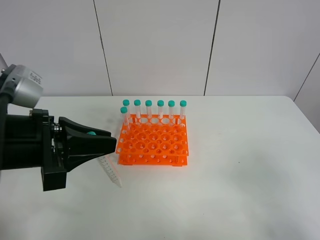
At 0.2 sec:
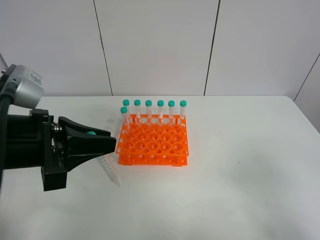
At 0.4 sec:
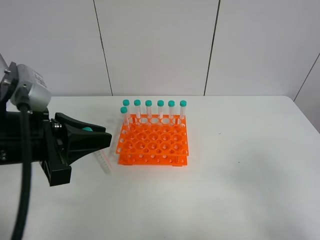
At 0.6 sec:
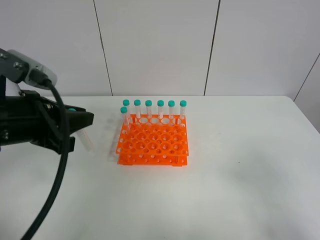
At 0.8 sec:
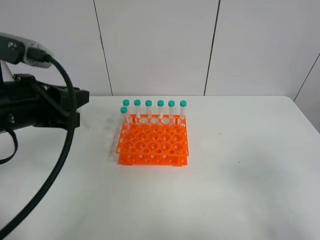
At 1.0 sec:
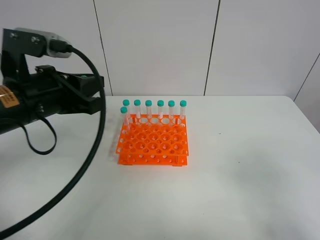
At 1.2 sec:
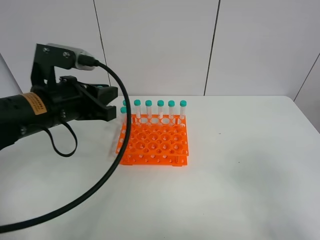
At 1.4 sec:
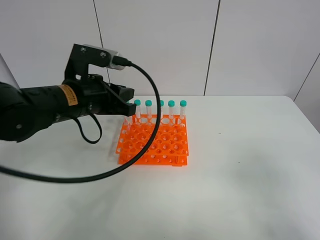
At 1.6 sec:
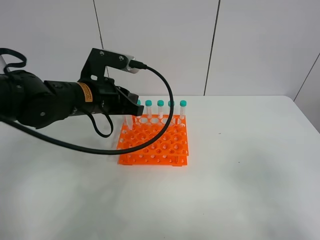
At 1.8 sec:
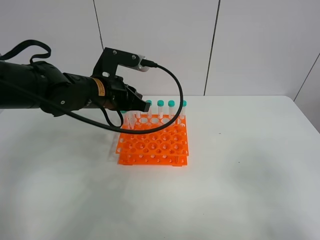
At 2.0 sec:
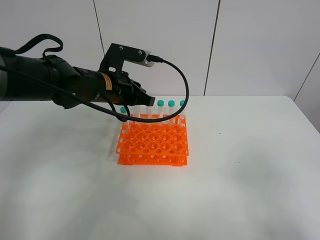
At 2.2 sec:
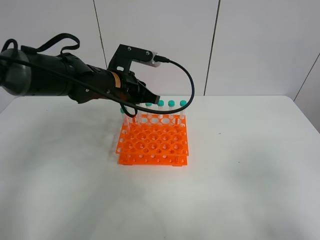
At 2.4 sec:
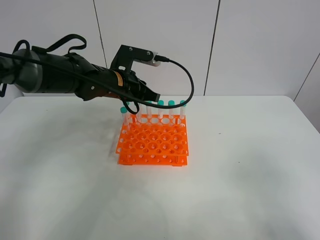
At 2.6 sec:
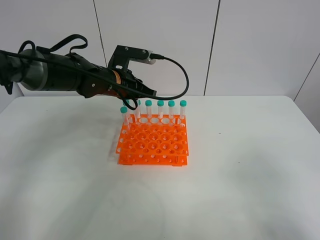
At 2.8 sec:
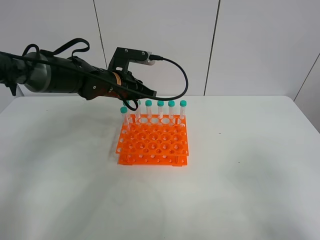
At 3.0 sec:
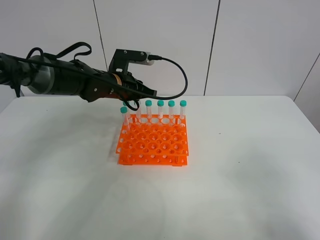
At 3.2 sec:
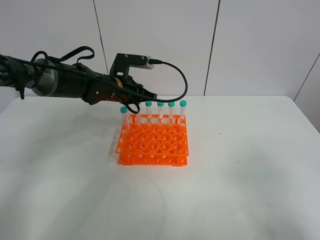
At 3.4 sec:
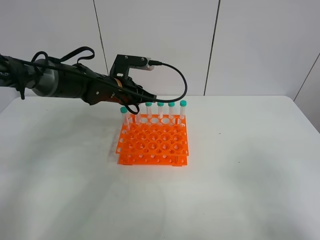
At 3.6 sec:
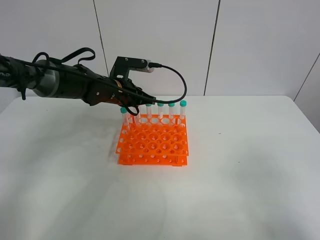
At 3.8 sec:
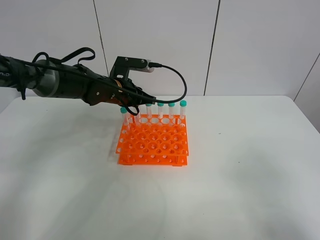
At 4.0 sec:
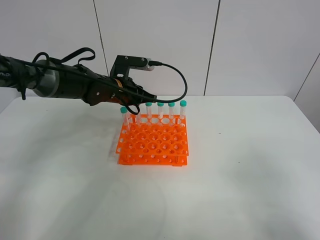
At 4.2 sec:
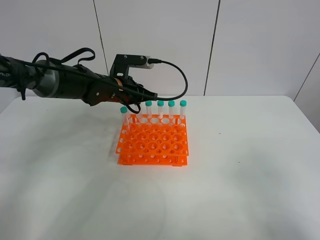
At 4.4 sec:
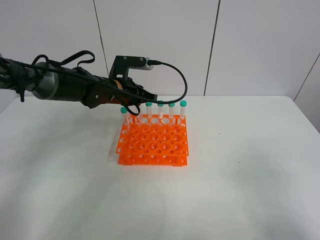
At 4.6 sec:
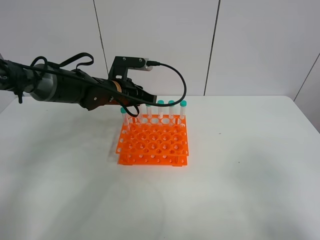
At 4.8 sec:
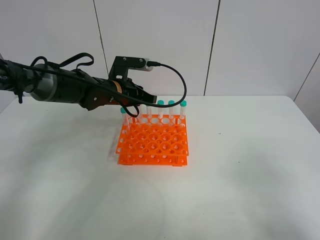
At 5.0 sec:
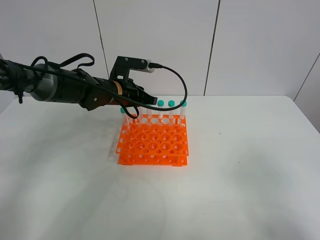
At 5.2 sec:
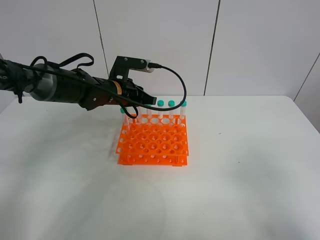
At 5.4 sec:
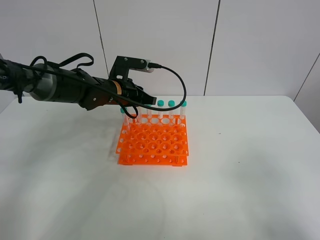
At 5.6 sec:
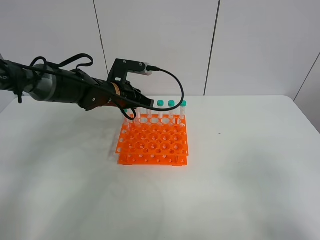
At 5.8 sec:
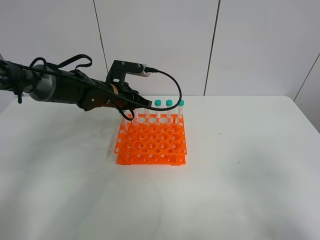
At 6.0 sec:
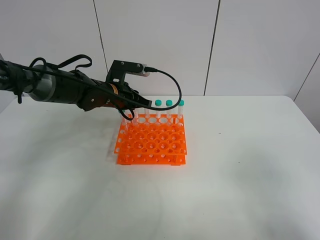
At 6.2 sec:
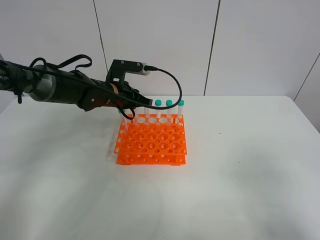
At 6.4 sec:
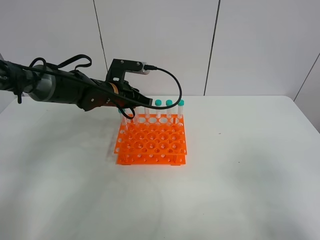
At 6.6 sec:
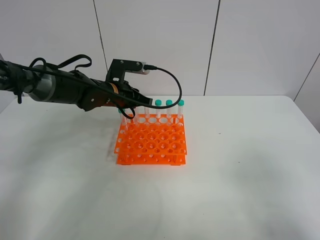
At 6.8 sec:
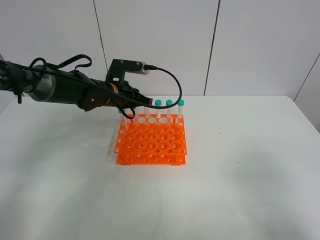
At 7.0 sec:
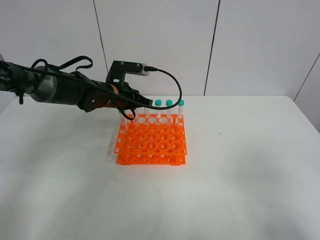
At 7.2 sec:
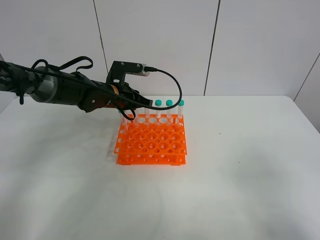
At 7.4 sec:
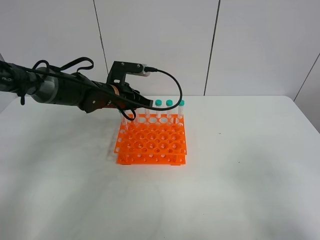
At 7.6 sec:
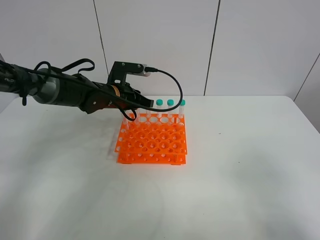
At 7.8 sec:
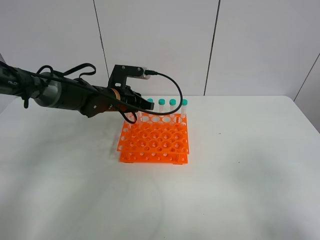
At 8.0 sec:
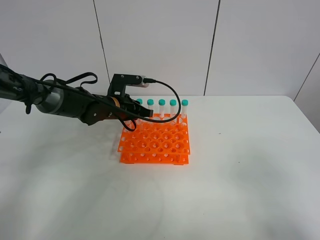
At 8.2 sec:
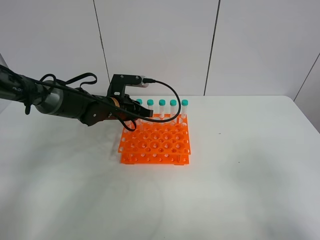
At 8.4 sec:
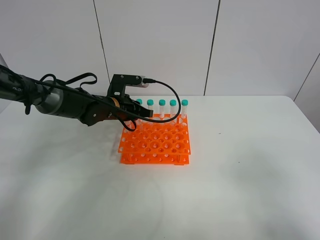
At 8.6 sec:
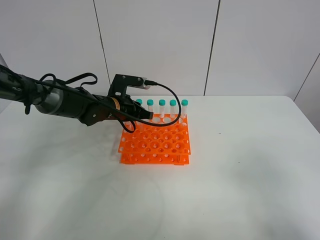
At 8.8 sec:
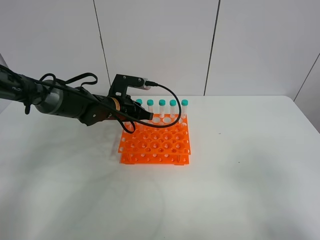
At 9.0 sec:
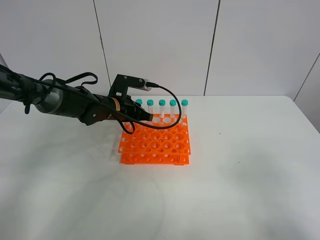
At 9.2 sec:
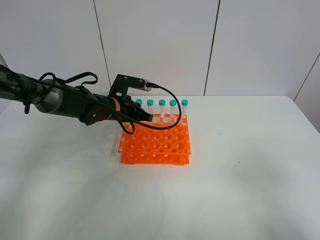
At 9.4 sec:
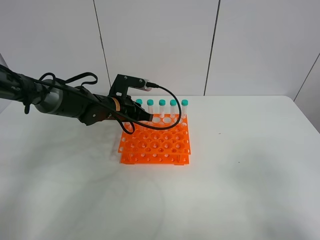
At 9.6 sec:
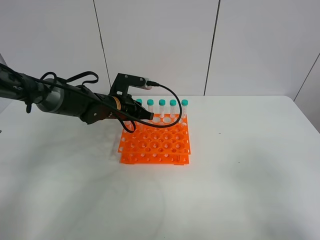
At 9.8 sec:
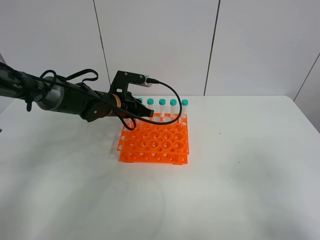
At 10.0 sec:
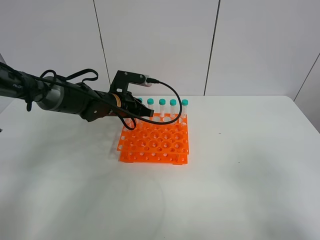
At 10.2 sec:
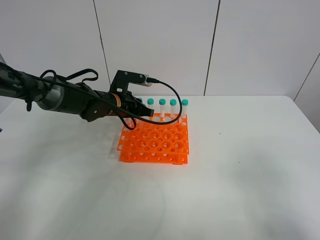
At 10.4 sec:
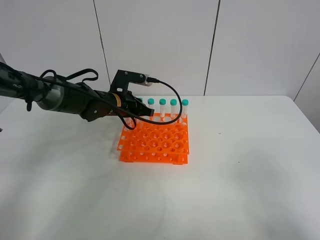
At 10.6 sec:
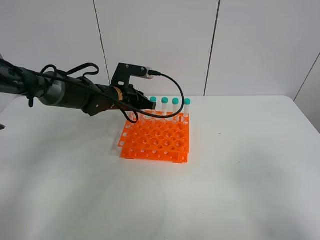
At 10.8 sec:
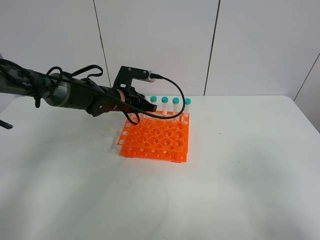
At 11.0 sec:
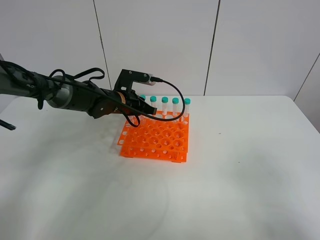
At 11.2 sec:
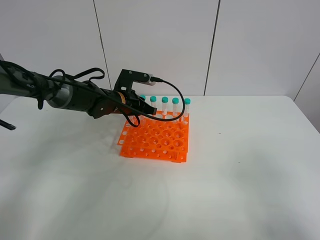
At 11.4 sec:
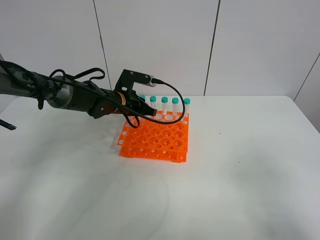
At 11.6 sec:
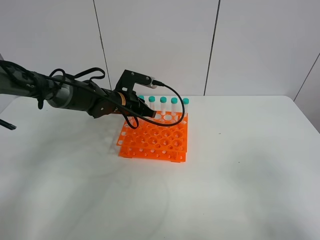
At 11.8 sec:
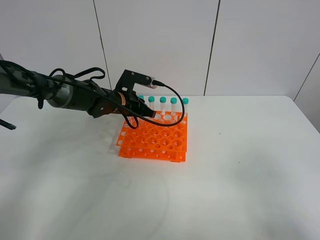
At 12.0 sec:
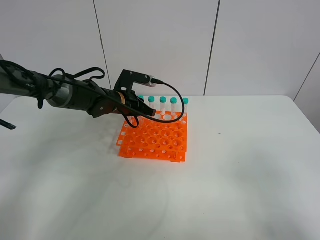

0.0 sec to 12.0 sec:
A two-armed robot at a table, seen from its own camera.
Task of the whole recording: Put the test tube on the table back onto the test tube rack.
0.0 sec to 1.6 sec: The left gripper is displaced forward by about 15 cm.
1.6 sec to 3.0 sec: The left gripper goes some 10 cm forward.
3.0 sec to 4.4 sec: Both grippers stay put.
4.4 sec to 6.0 sec: Both grippers stay put.
6.0 sec to 7.6 sec: Both grippers stay put.
7.6 sec to 12.0 sec: The grippers move only a little.

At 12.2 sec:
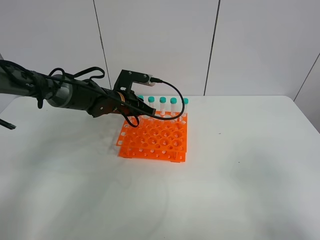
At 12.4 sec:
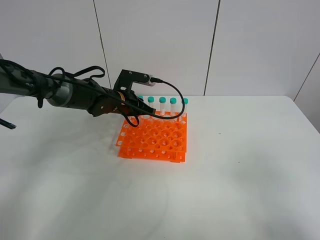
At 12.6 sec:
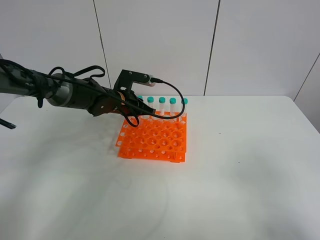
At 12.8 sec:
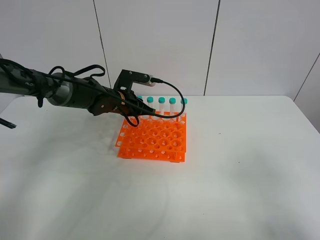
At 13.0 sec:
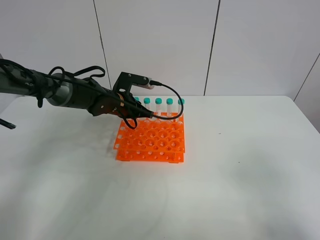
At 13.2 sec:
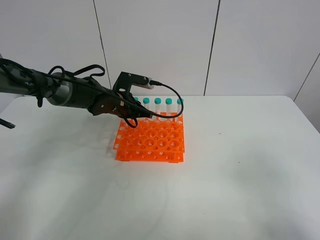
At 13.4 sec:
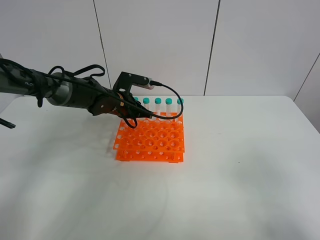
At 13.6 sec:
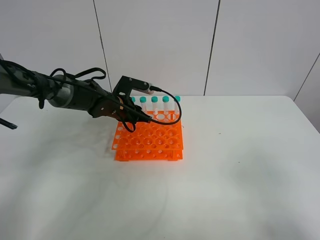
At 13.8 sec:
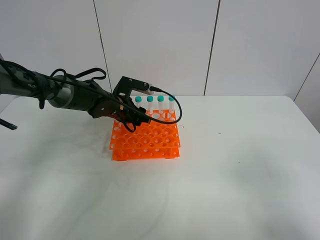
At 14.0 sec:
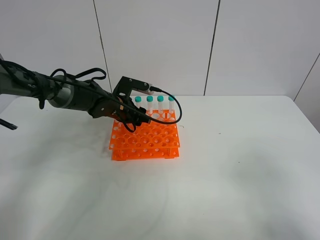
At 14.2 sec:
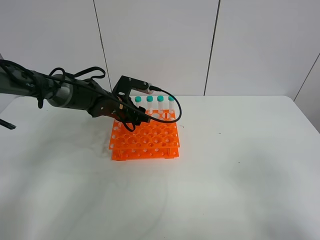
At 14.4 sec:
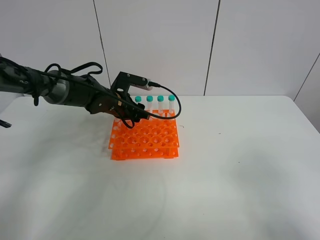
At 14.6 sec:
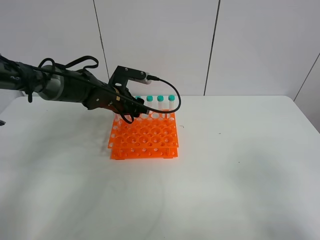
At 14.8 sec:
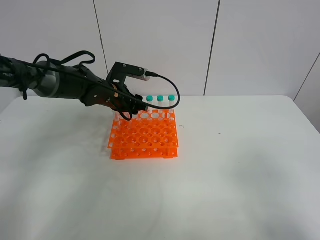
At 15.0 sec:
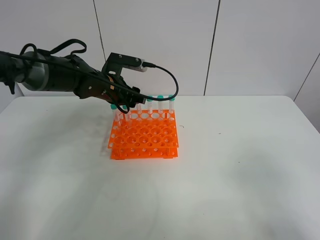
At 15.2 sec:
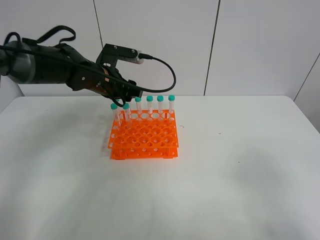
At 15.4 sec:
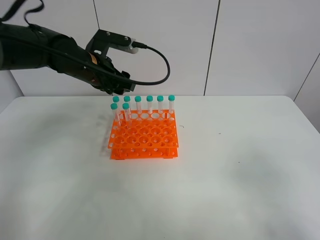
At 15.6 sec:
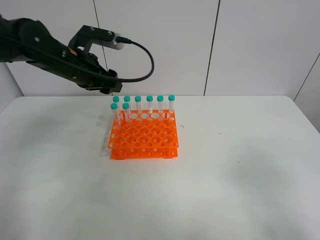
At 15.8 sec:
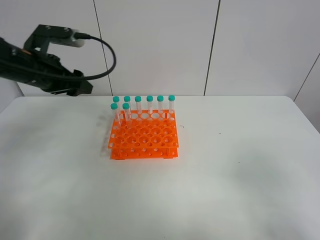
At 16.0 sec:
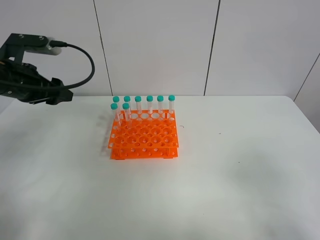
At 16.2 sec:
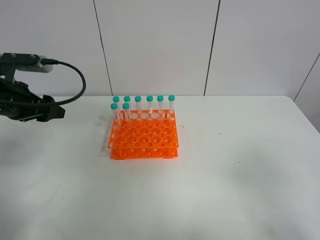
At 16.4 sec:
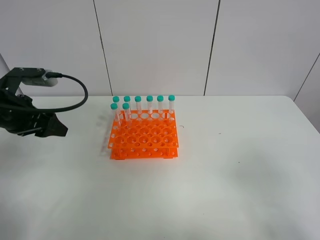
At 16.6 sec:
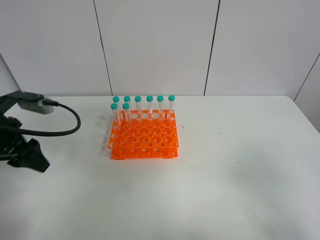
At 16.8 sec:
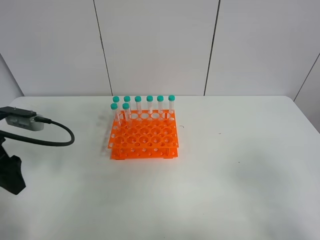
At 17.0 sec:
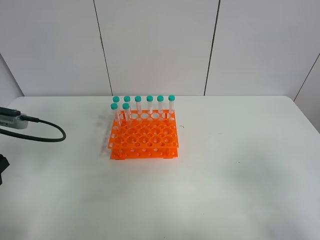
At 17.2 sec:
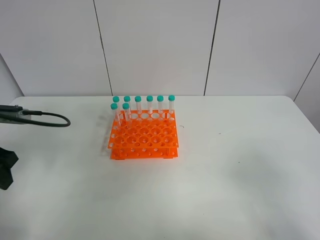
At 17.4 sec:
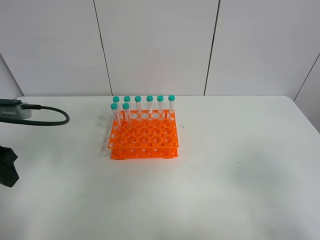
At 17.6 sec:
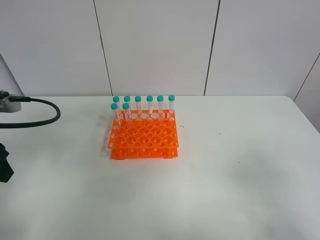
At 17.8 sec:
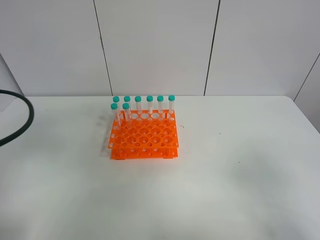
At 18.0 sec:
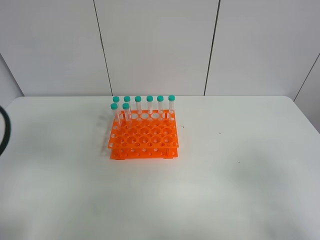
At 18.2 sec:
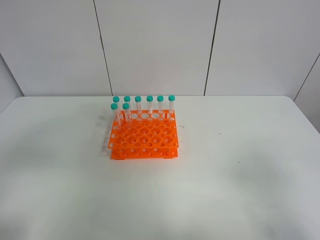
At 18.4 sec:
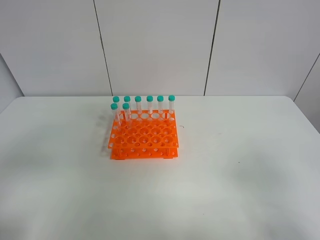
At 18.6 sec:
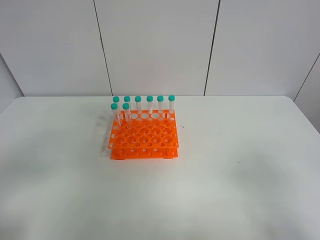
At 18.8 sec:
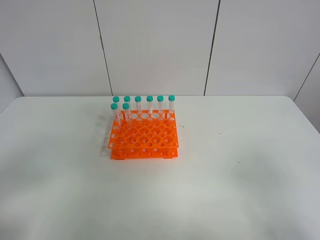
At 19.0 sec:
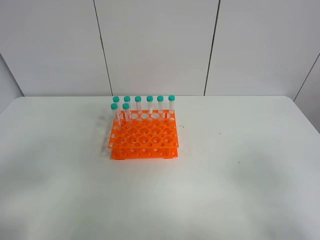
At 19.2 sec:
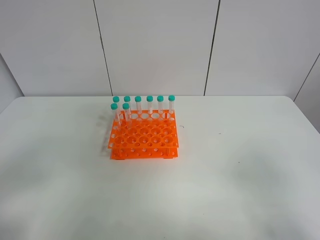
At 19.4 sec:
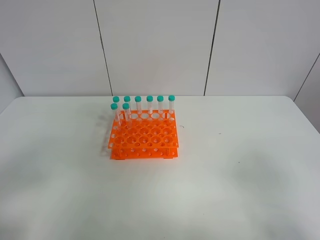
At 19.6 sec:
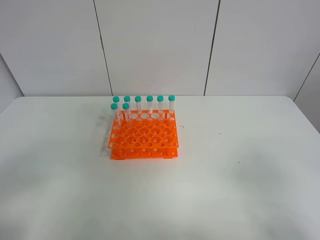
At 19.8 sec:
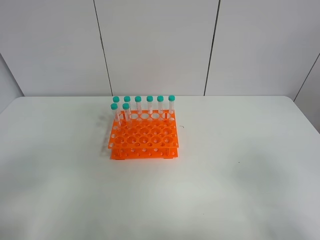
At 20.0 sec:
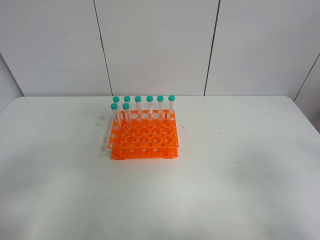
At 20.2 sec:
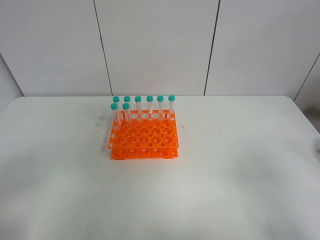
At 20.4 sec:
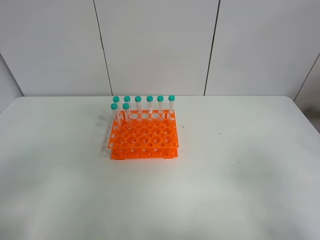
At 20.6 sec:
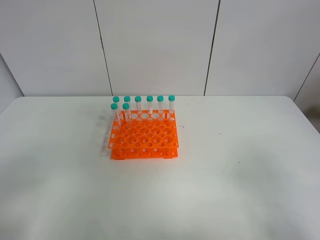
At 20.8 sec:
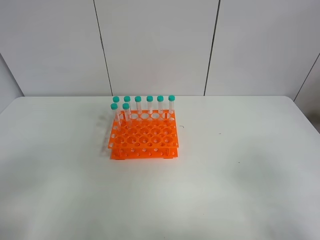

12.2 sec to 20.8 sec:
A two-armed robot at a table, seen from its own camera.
Task of the whole recording: Put the test tube on the table back onto the test tube rack.
12.2 sec to 13.6 sec: The left gripper opens.
13.6 sec to 15.0 sec: The left gripper goes some 5 cm upward.
15.0 sec to 16.6 sec: The left gripper travels backward and to the left by roughly 25 cm.
16.6 sec to 18.0 sec: The left gripper travels backward and upward by approximately 15 cm.
18.0 sec to 19.4 sec: The left gripper goes some 10 cm backward.
